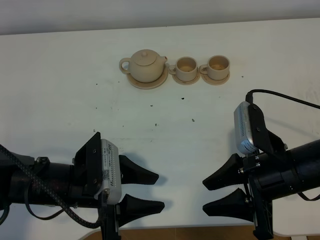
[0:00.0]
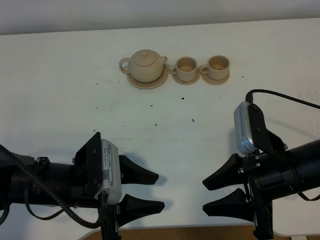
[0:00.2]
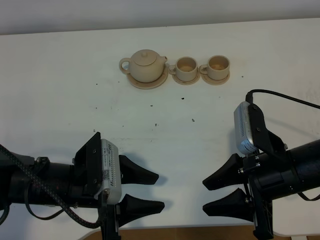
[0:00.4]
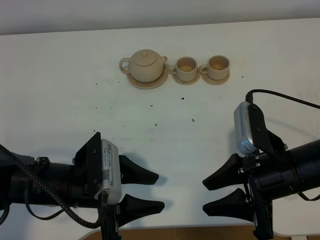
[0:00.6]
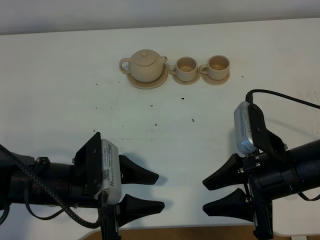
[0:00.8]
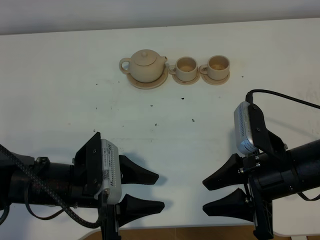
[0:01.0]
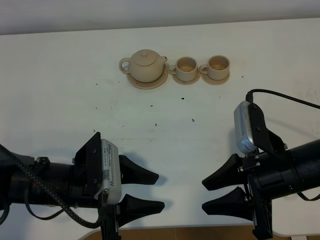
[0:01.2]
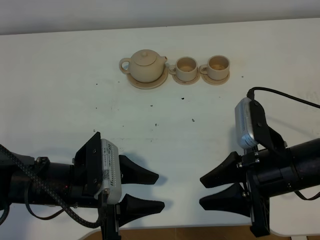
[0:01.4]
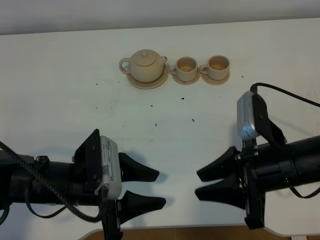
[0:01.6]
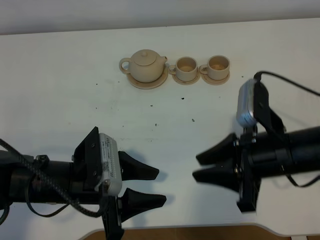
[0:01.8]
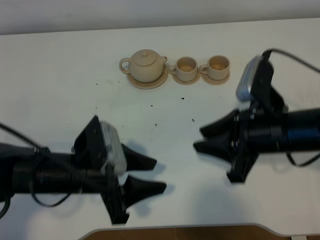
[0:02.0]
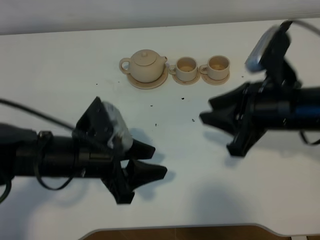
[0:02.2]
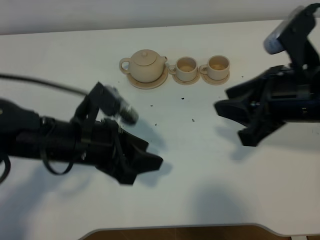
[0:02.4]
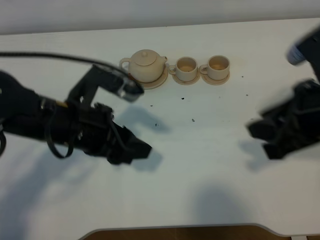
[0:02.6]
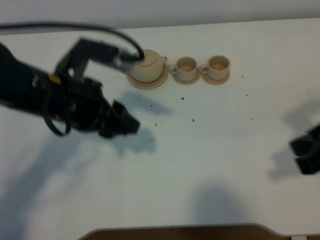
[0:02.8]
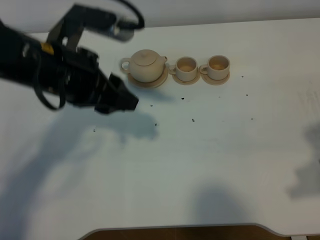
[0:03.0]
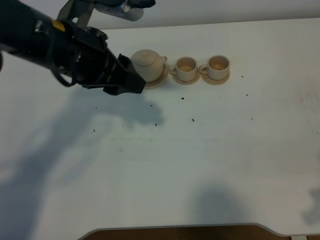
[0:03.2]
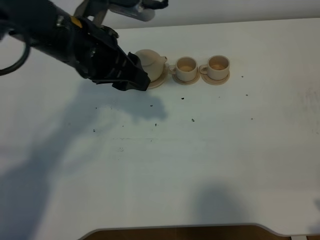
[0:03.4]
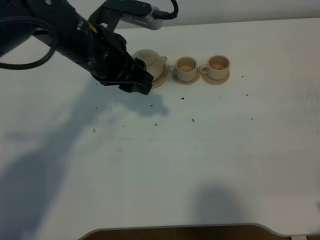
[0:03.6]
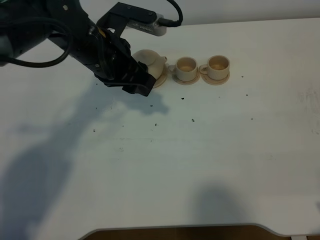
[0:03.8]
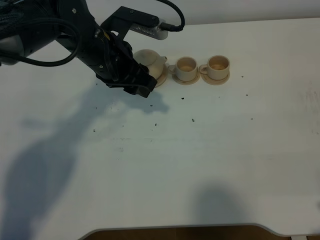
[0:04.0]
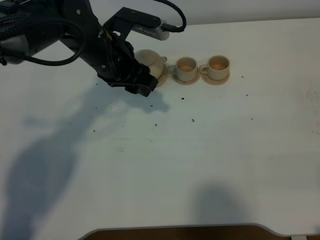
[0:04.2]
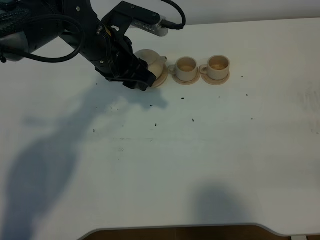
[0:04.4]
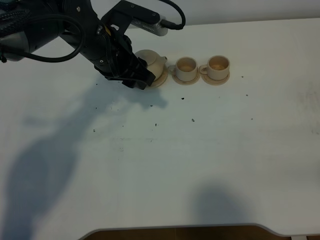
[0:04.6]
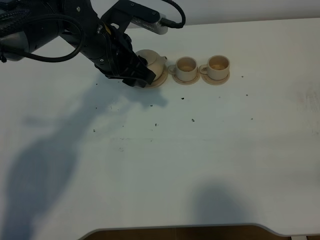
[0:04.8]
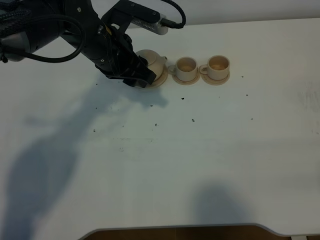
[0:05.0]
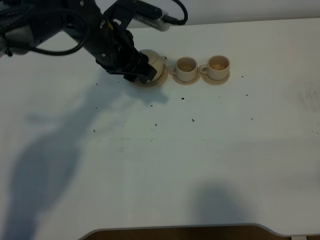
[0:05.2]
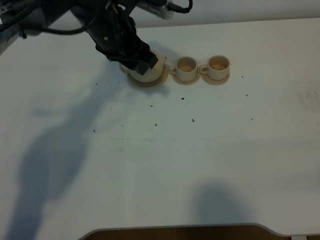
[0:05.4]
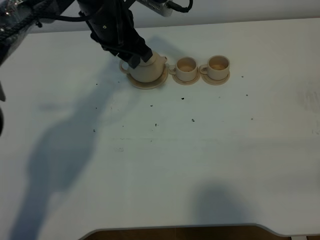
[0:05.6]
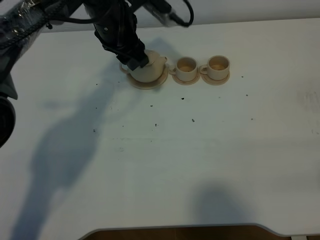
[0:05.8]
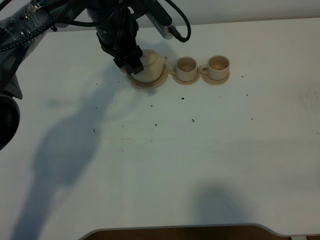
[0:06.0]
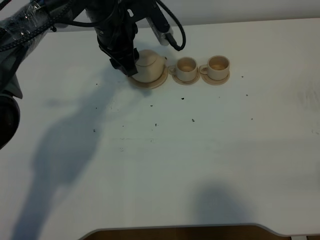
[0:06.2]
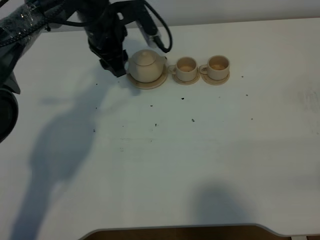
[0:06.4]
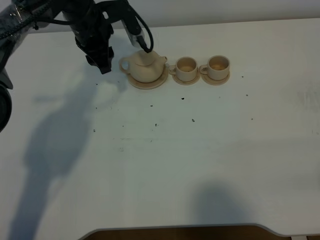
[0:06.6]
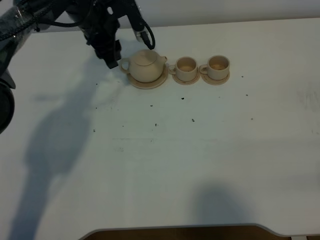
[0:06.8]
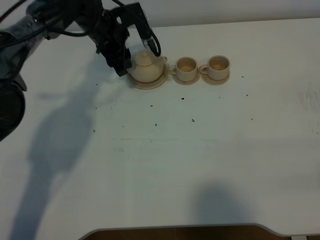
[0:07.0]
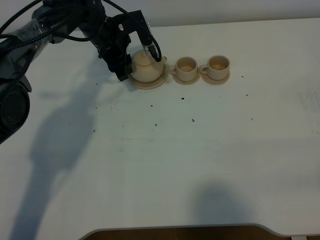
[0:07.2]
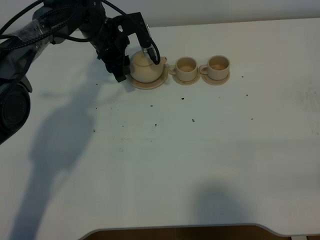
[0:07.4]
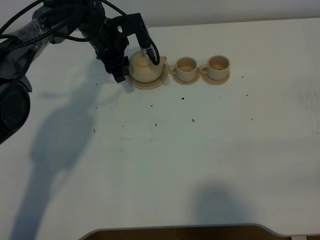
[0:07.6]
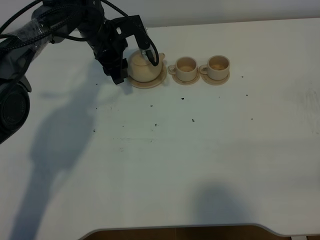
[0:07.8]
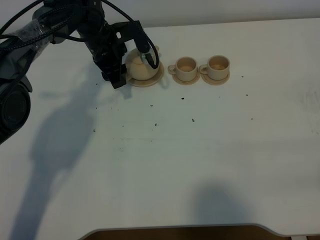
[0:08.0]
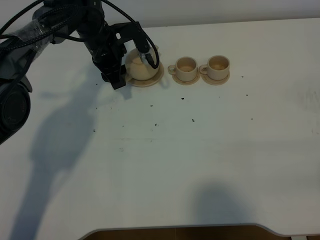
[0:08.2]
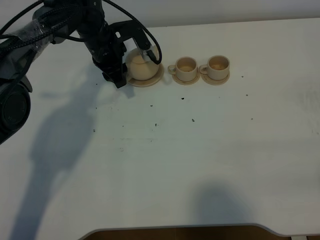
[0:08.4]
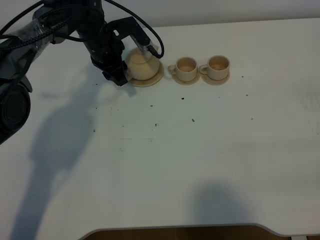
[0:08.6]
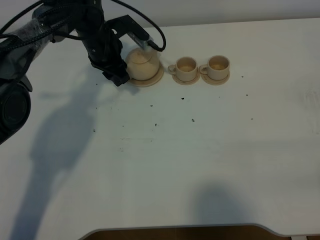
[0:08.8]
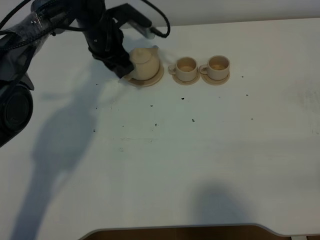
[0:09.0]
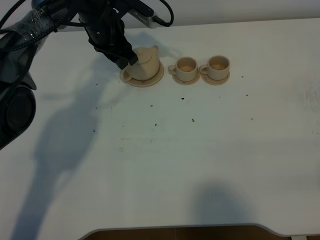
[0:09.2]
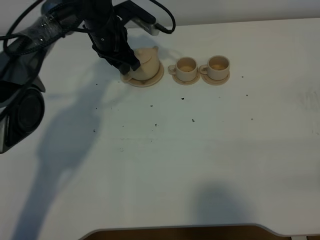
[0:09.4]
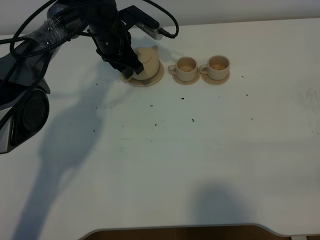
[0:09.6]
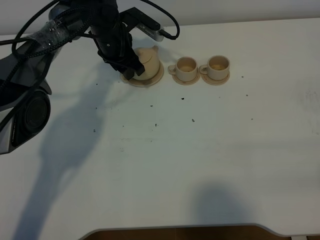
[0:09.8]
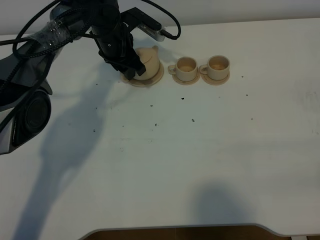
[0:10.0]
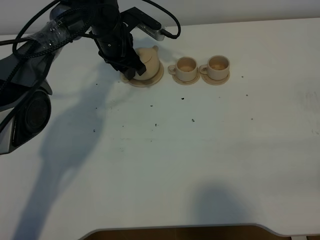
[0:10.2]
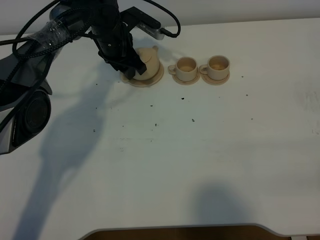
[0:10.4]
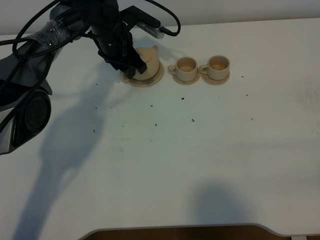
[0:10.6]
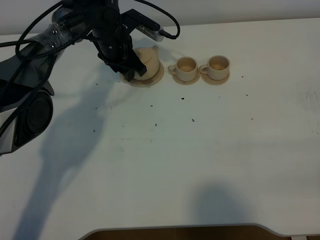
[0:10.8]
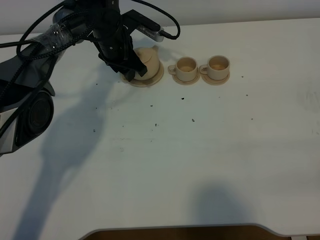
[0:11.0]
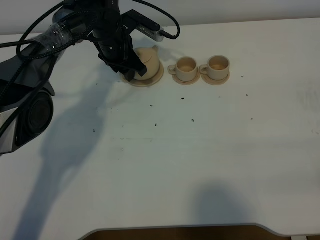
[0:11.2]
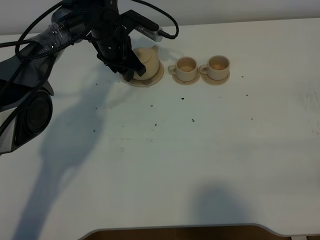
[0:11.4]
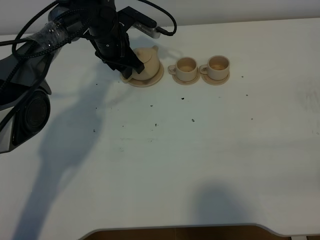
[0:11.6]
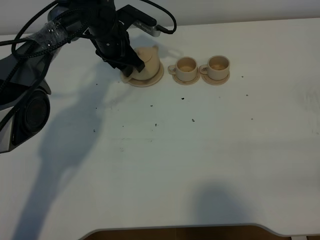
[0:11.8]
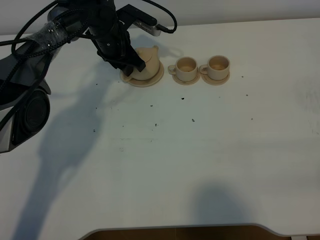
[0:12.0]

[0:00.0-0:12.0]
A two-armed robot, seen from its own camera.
Task of the whole recording: grasp the brown teapot and pour the tea into the two brown teacups one by one, put the brown teapot back in its original place.
0:00.0 to 0:01.6: The right gripper closes up.
0:01.6 to 0:03.0: The left gripper heads upward and forward, covering about 20 cm; the right gripper heads upward, to the right and backward, covering about 15 cm.
0:03.0 to 0:04.4: The left gripper is displaced forward and downward by about 15 cm, while the right gripper goes roughly 10 cm backward.
0:04.4 to 0:06.0: The left gripper goes roughly 5 cm forward.
0:06.0 to 0:07.6: The left gripper goes about 10 cm downward and forward.
0:09.0 to 0:10.4: The grippers move only a little.
0:10.4 to 0:12.0: Both grippers stay put.

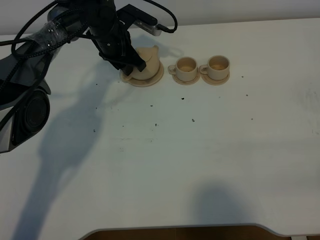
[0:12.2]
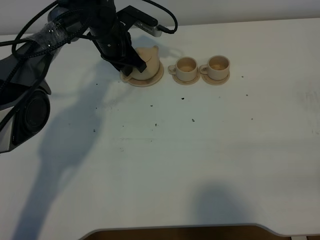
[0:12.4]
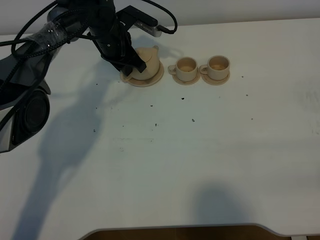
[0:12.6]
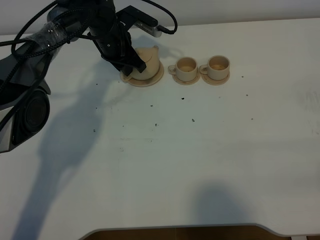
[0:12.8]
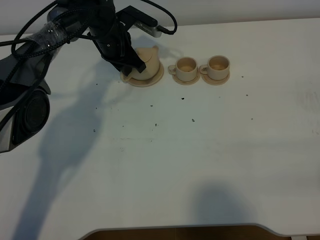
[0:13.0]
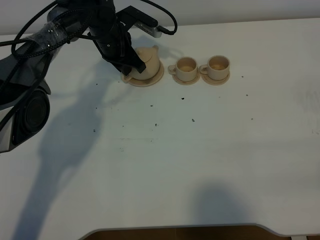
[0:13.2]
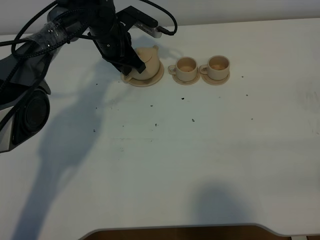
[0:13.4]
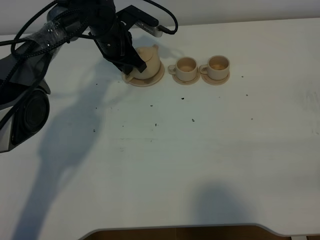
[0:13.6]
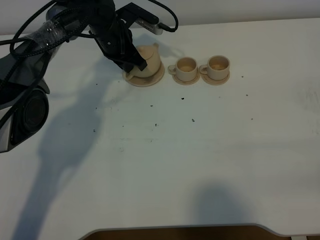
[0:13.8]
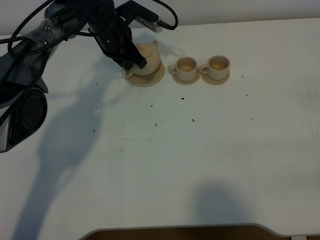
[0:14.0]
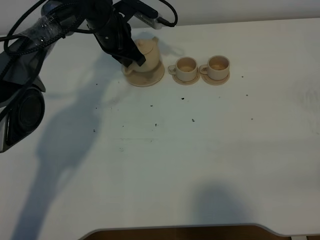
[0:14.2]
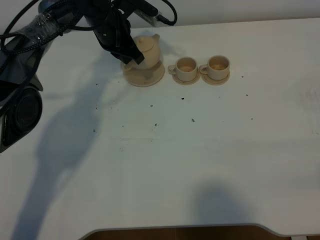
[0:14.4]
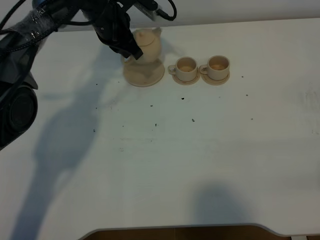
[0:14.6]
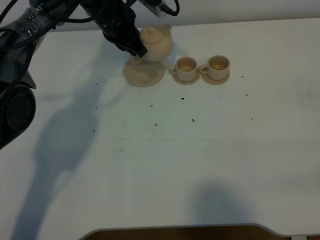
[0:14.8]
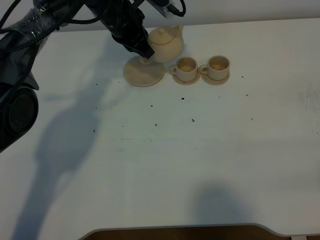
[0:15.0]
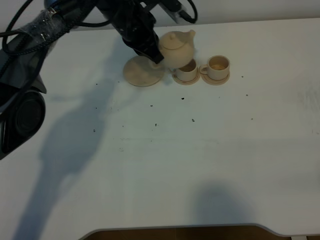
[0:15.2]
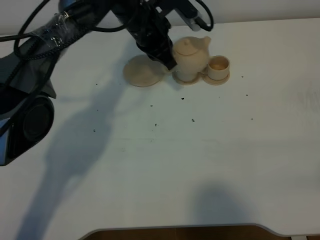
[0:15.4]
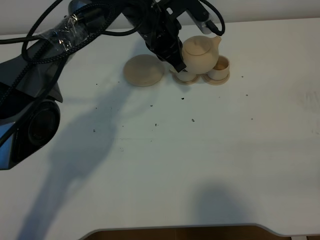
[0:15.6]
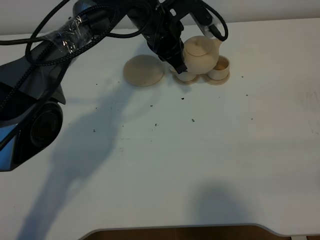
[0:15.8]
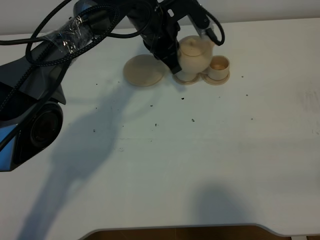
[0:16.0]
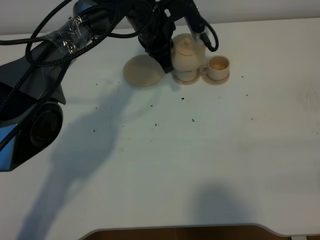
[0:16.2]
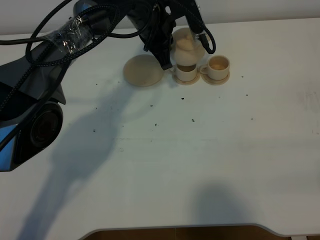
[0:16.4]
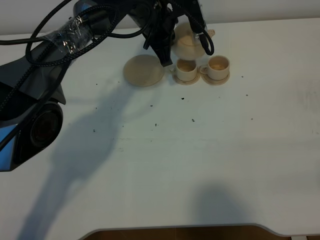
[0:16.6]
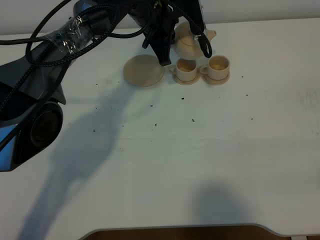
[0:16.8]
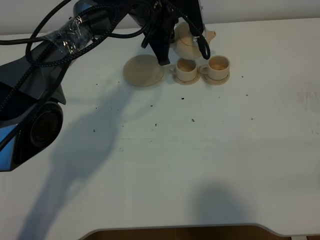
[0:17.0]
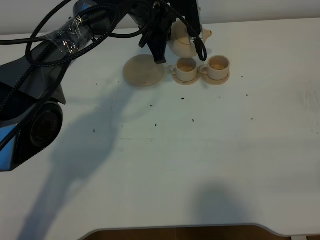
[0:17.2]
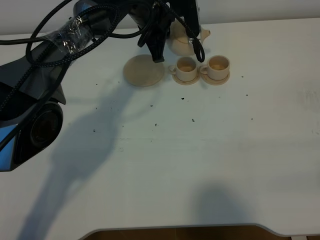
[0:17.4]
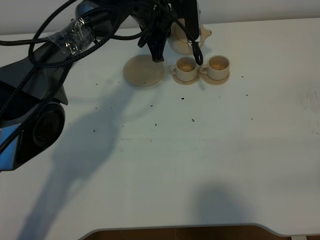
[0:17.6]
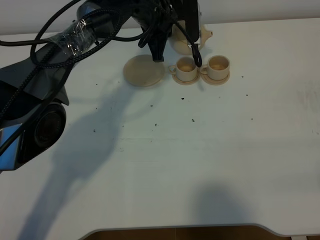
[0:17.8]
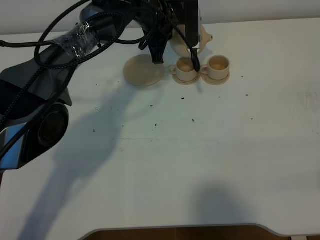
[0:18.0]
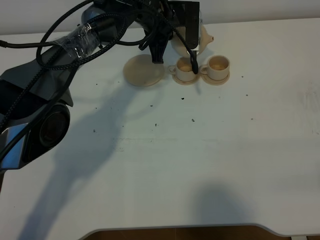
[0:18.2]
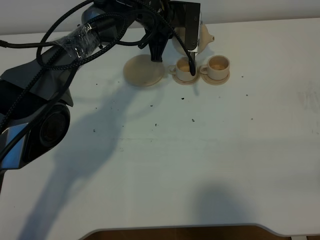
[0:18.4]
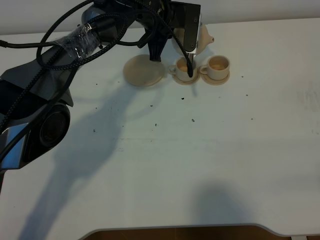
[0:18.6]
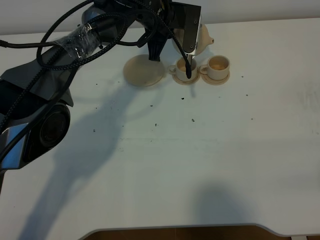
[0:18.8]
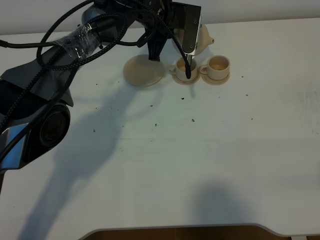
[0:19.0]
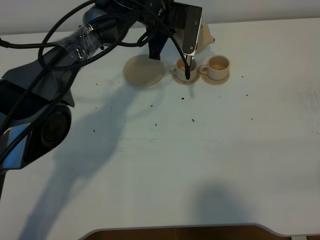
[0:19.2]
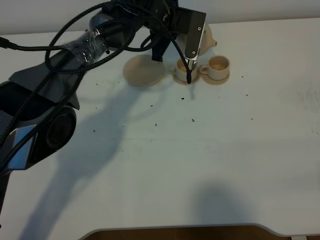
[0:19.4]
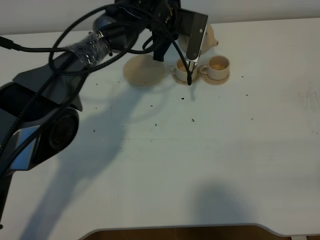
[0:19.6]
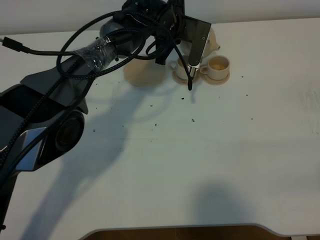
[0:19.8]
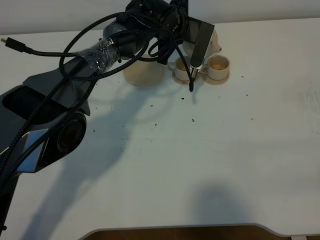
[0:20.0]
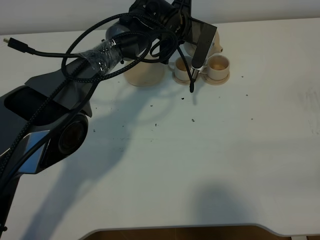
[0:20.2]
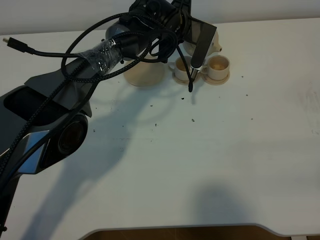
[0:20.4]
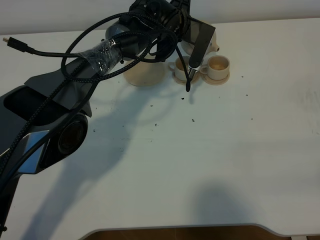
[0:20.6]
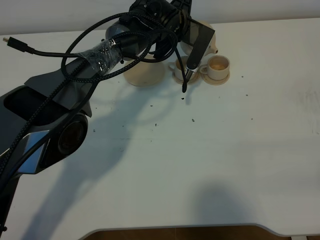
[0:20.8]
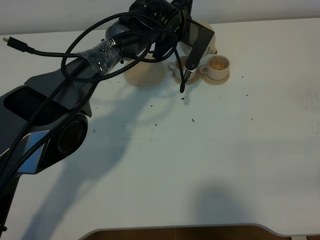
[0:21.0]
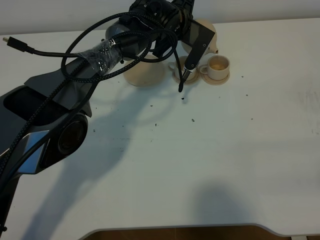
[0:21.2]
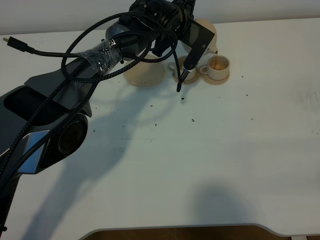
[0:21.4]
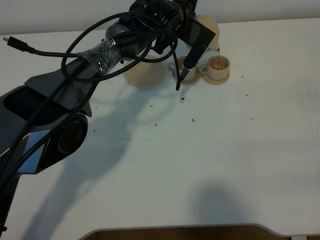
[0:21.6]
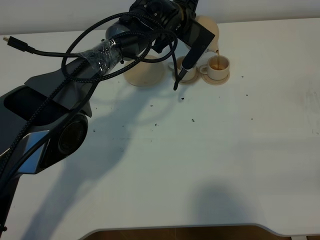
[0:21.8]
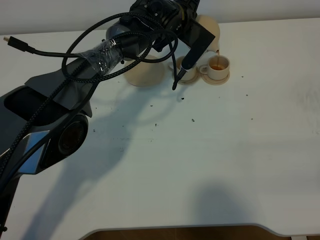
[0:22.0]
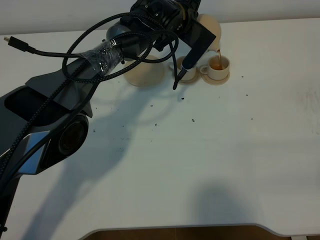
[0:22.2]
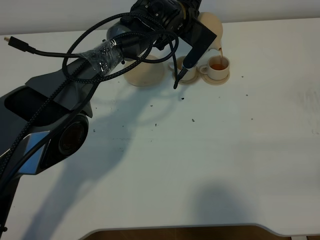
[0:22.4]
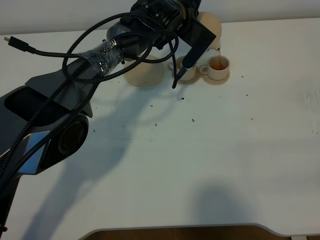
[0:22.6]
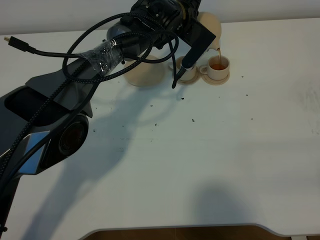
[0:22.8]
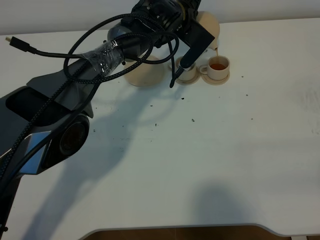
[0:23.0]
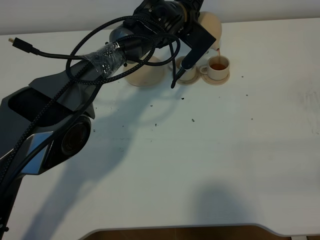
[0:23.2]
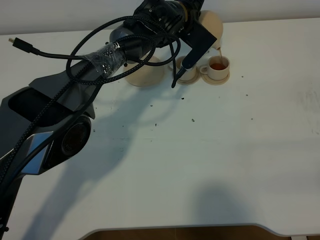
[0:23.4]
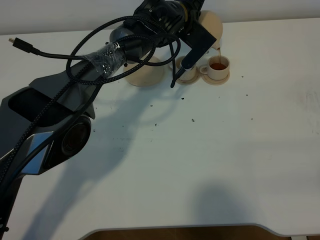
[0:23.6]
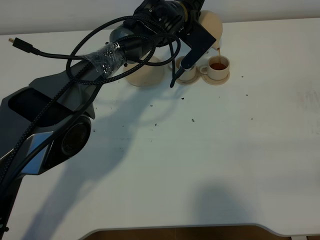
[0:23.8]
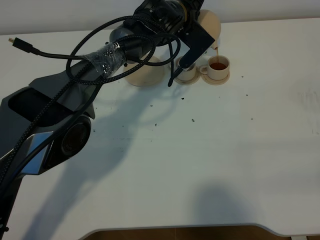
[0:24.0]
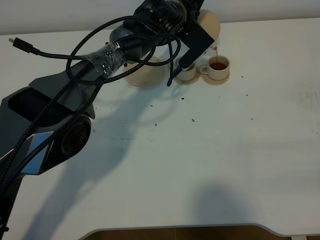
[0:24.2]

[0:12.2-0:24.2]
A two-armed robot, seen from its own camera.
Task of the whole recording: grasp the brown teapot and pour the tea into the two brown teacups one by one, put the brown teapot back in its original place.
0:12.2 to 0:13.8: The left gripper closes up.
0:13.8 to 0:15.2: The left gripper moves upward, some 5 cm.
0:18.2 to 0:19.8: The grippers make only small movements.
0:19.8 to 0:21.2: There are only small adjustments of the grippers.
0:21.2 to 0:24.2: The grippers move only a little.
